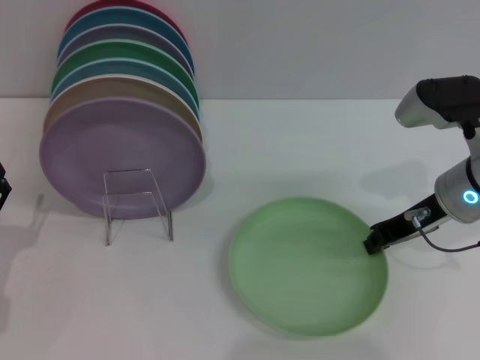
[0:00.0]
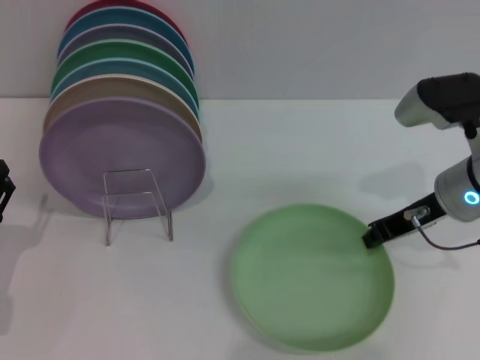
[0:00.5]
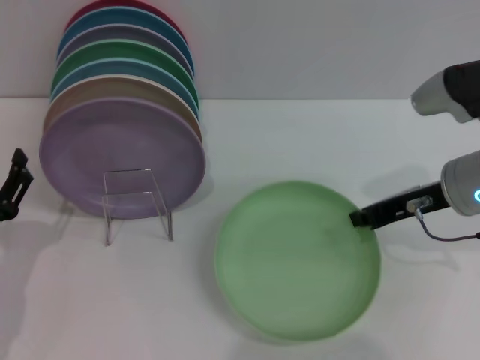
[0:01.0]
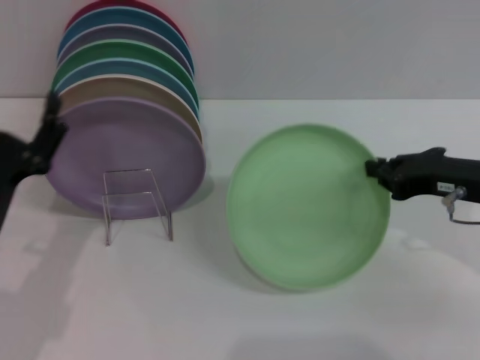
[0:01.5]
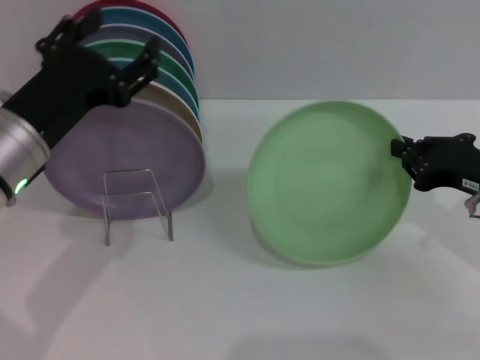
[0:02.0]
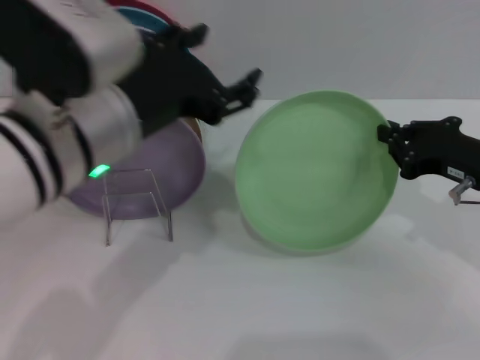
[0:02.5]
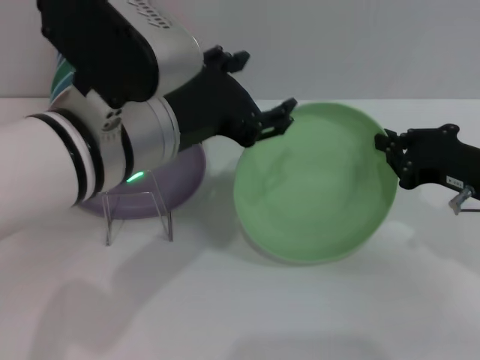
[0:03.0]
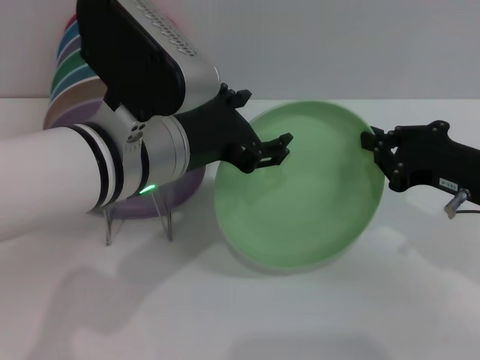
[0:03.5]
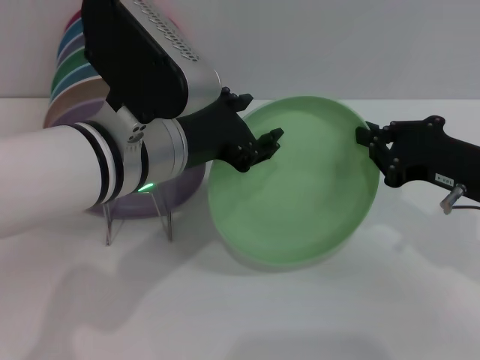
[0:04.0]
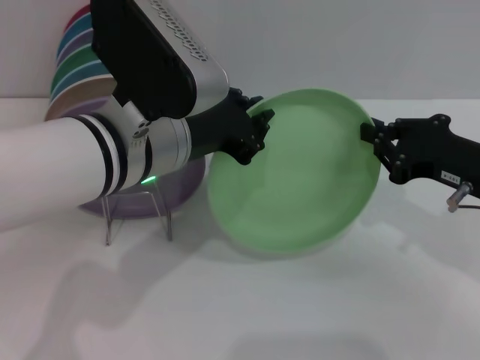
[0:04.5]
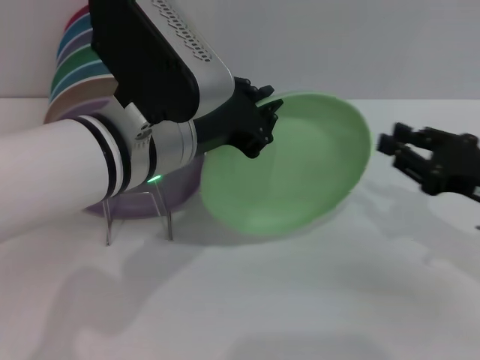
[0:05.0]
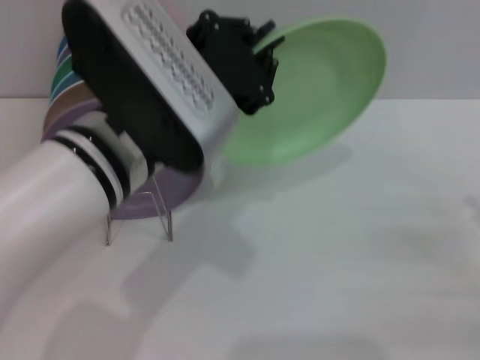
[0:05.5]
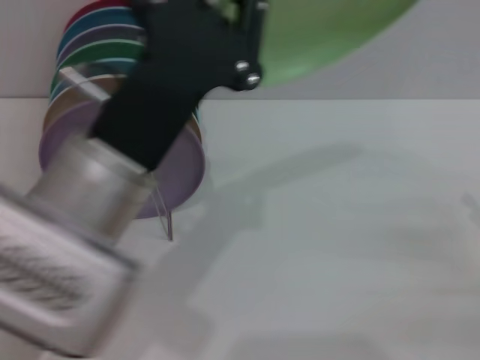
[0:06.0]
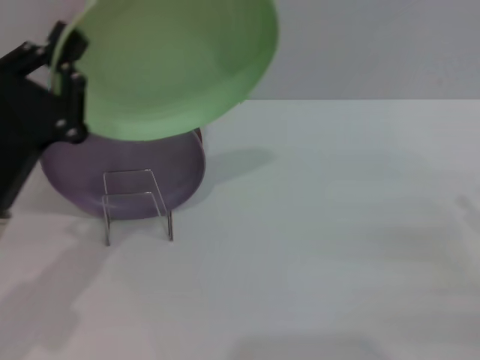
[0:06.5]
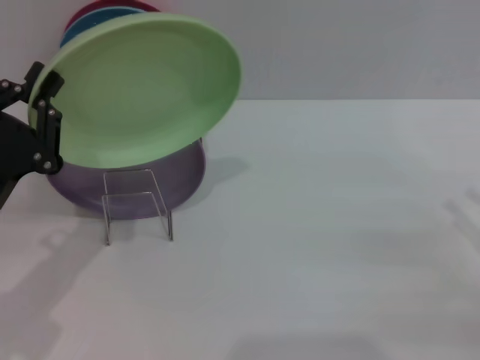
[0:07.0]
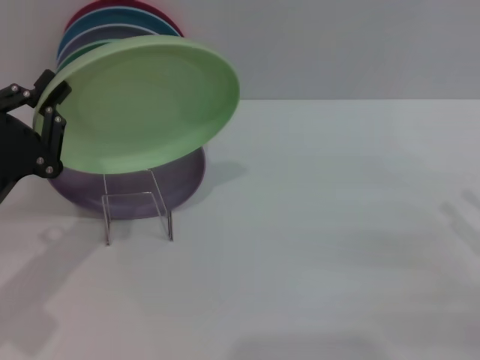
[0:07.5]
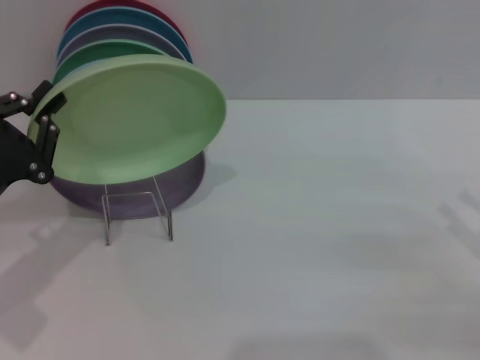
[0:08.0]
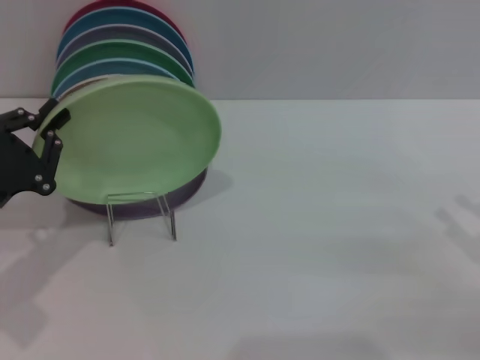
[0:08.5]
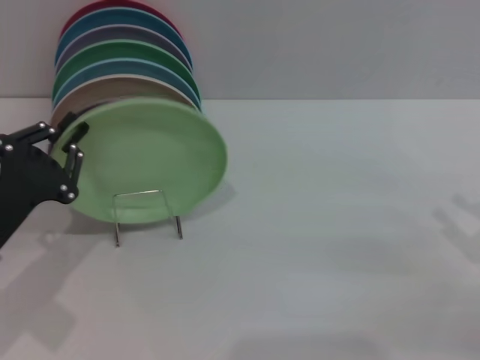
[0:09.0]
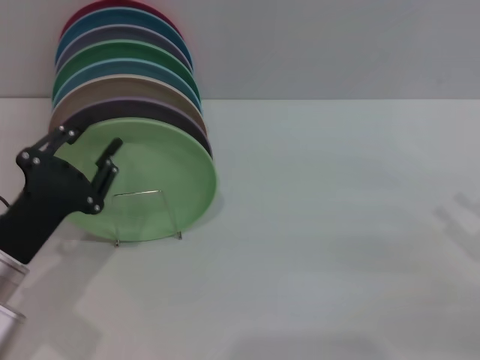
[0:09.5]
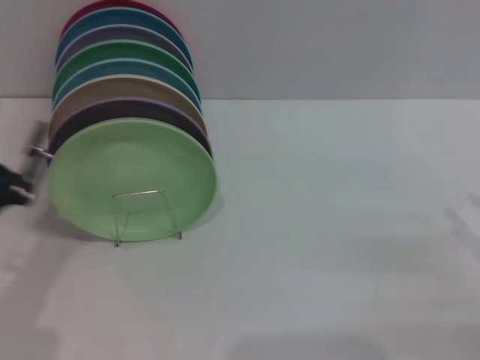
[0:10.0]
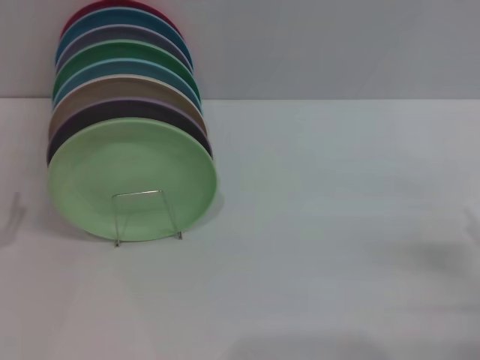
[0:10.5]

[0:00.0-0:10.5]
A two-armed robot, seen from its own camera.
Task of the whole recording: Grip the plate with one hand, pass it to the other, then set it on the shelf.
Step, 0:02.0 to 0:05.0: Pass the plate from the right gripper to the left gripper.
Step, 0:05.5 to 0:09.5: Place the plate on the shelf with the left gripper.
0:00.0 to 0:02.0: The right gripper goes roughly 10 cm backward and to the right; the left gripper heads upward and to the right, covering about 20 cm.
0:02.0 to 0:04.0: The left gripper moves to the right, some 10 cm.
0:04.0 to 0:06.5: The left gripper shifts roughly 15 cm to the left and downward, and closes up. Meanwhile the right gripper goes about 15 cm to the right and backward, and opens.
0:06.5 to 0:08.5: The left gripper is displaced to the left by some 5 cm.
0:08.5 to 0:10.5: The left gripper changes place by approximately 5 cm, and opens. Meanwhile the right gripper shifts approximately 5 cm downward.
